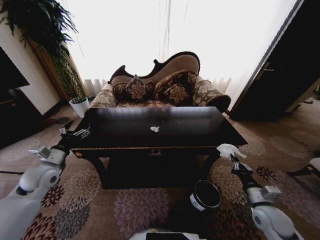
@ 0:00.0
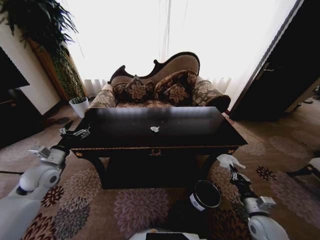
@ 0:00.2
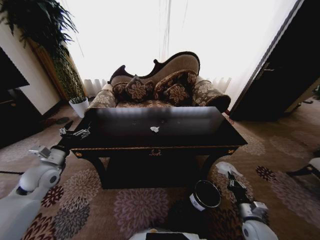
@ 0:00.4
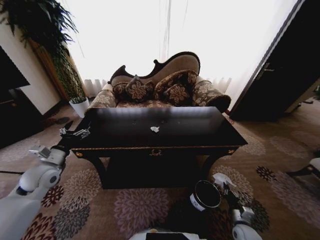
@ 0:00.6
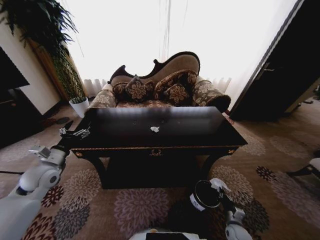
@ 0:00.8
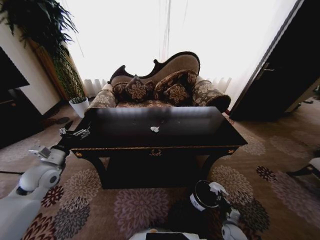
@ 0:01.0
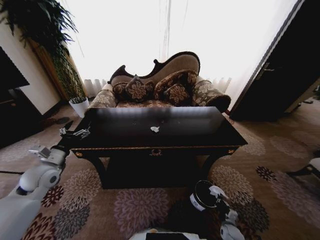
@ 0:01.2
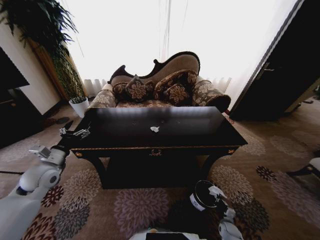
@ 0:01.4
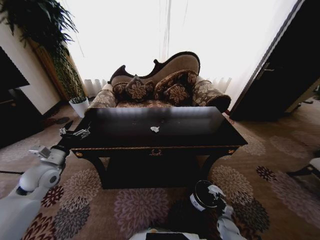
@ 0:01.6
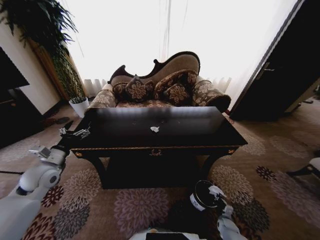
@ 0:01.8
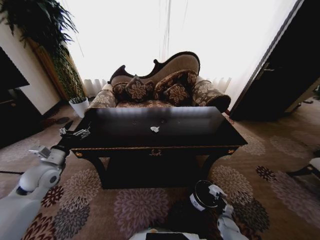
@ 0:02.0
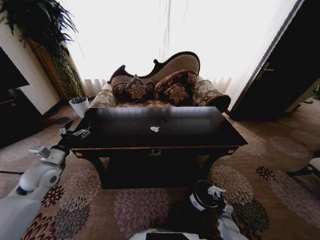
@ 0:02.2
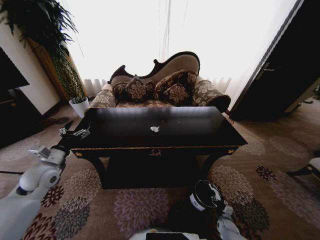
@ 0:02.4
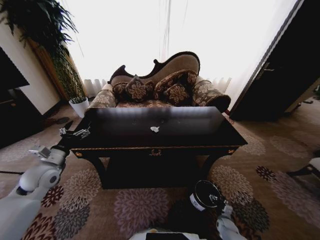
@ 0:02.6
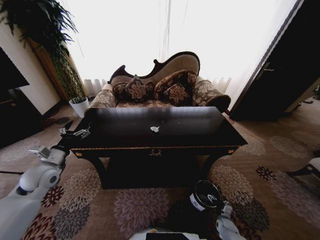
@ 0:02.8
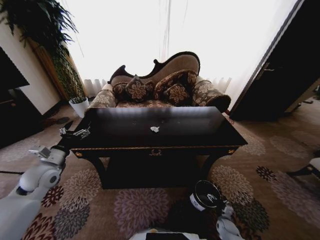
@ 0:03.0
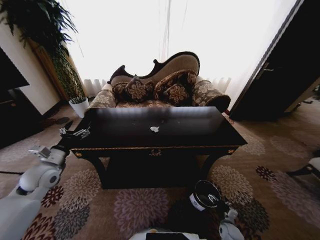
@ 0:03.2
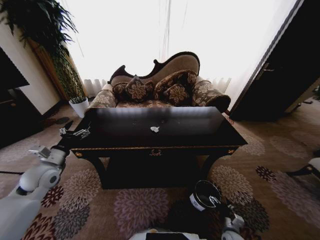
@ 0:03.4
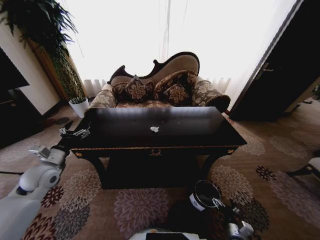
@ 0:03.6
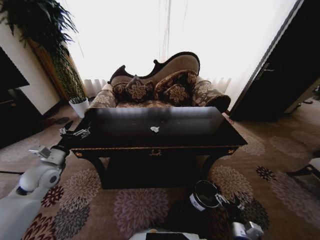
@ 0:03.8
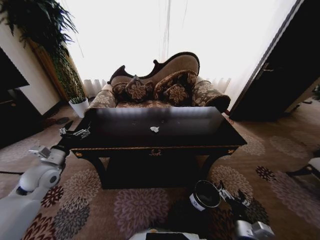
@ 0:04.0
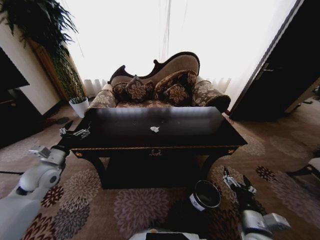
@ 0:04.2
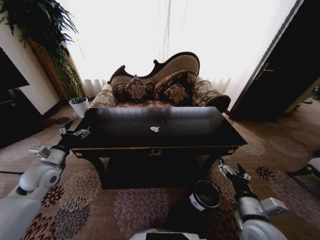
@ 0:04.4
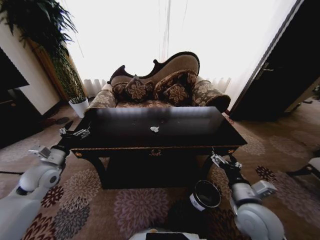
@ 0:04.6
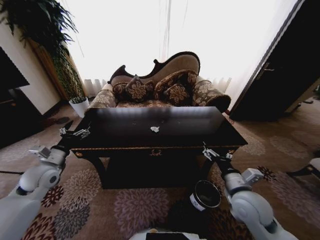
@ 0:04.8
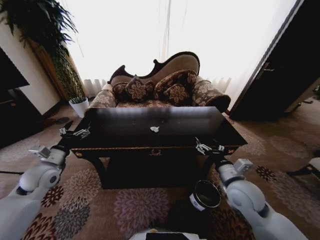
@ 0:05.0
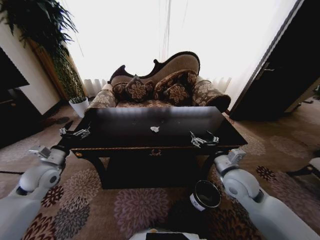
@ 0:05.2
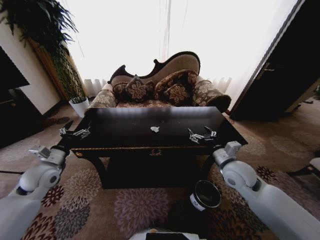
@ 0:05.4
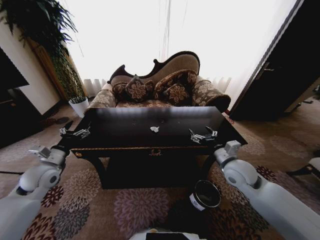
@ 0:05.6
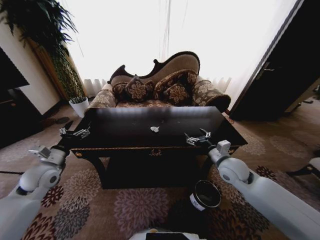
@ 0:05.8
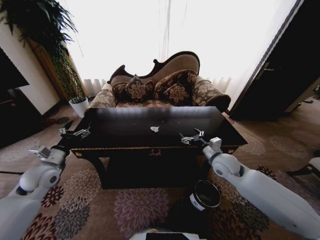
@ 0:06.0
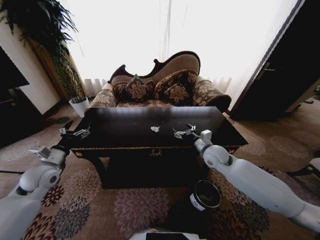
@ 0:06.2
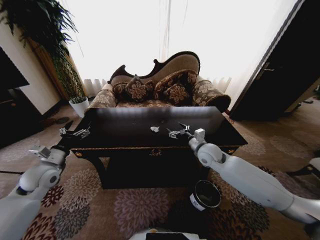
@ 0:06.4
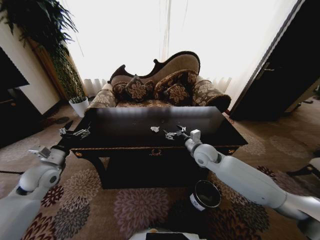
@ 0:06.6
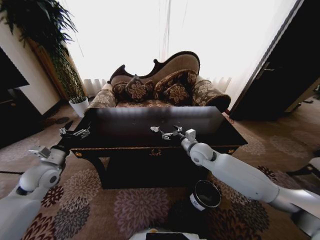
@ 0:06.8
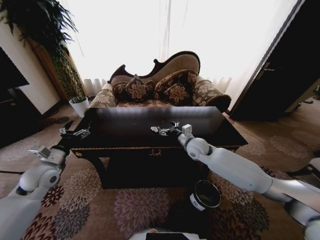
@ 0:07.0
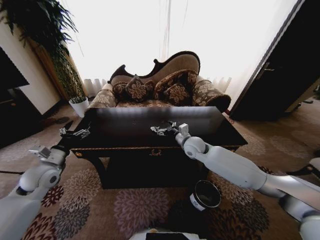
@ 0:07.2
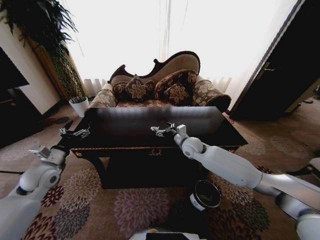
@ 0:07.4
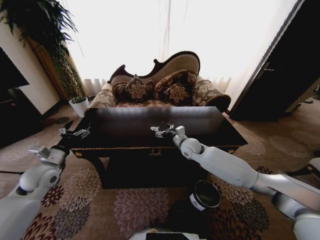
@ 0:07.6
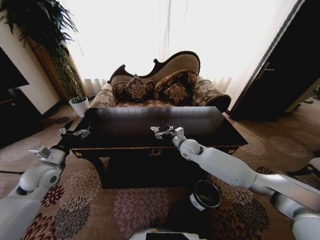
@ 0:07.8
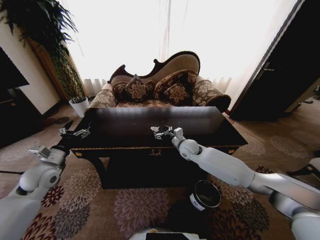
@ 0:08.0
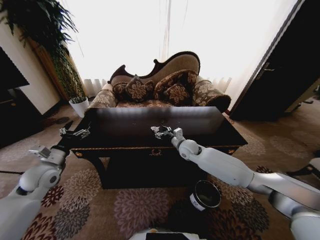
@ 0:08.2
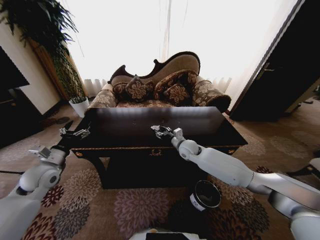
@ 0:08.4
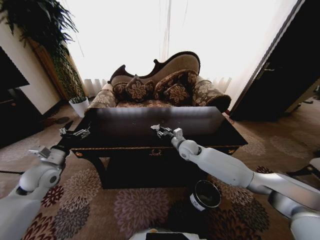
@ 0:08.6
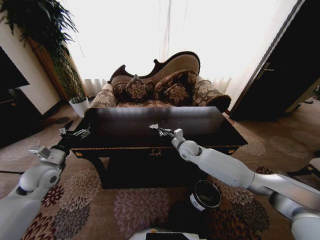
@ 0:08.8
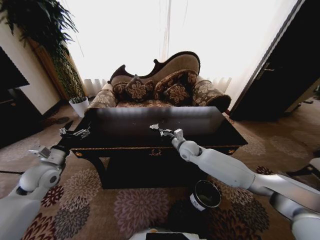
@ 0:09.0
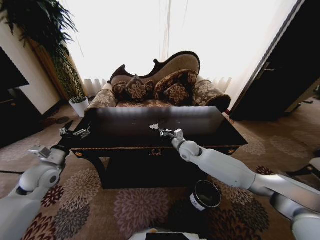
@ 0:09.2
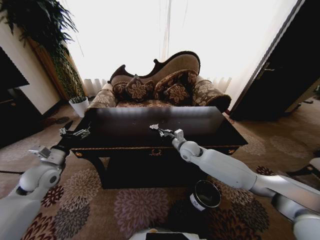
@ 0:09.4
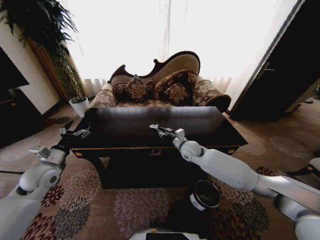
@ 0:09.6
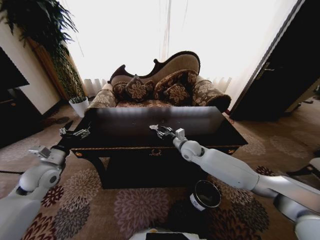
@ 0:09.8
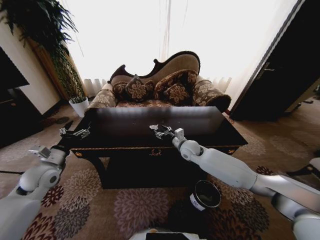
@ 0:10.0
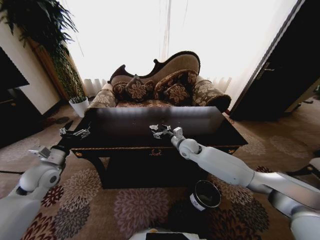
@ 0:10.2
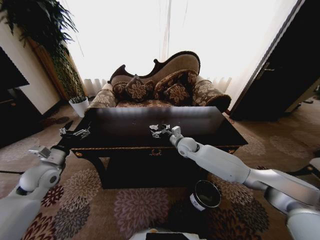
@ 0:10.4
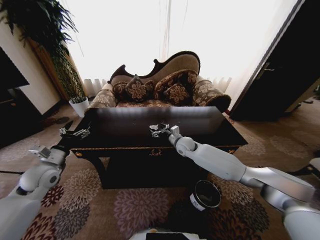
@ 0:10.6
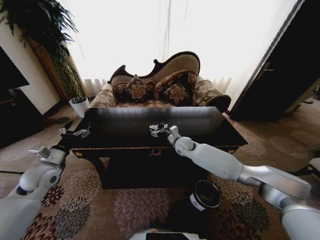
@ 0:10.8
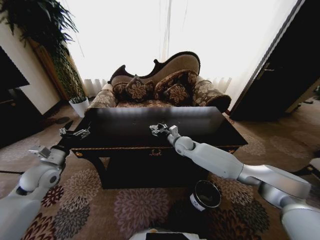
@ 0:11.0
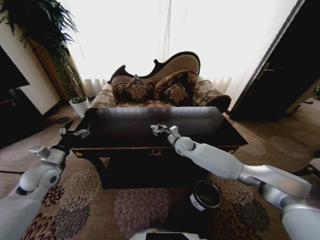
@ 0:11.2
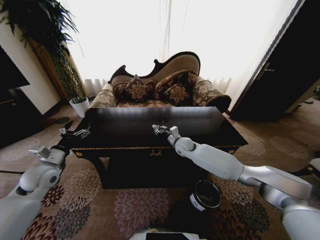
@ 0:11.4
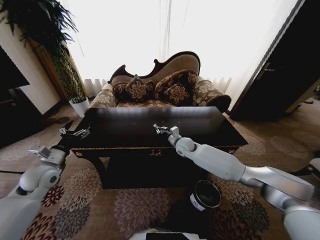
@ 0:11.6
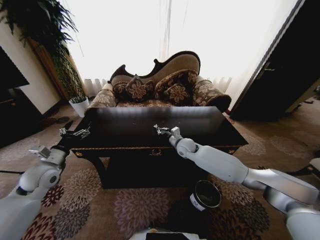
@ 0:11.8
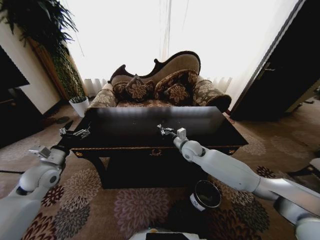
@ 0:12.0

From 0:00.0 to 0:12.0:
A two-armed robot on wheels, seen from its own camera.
Task of the whole recording: Move to the front of the table and place the trash on the table into the trash bin.
From 0:00.0 to 0:01.6: The right gripper moves downward, about 30 cm.
From 0:03.0 to 0:04.4: The right gripper heads upward, covering about 35 cm.
From 0:04.4 to 0:06.0: The right gripper shifts roughly 20 cm forward.
From 0:06.0 to 0:07.6: The right gripper is displaced to the left and forward by roughly 15 cm.
From 0:07.6 to 0:09.0: The right gripper closes.
From 0:09.0 to 0:10.4: The right gripper opens its fingers.
From 0:10.4 to 0:12.0: The right gripper closes its fingers.

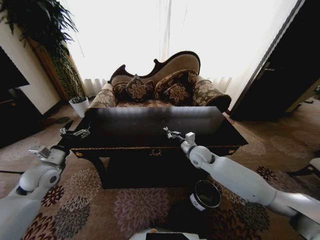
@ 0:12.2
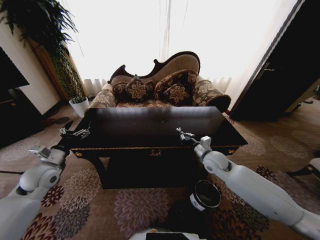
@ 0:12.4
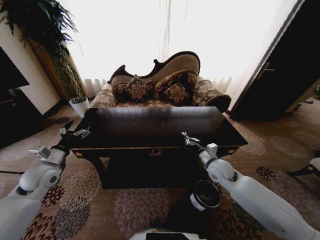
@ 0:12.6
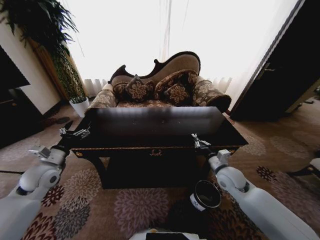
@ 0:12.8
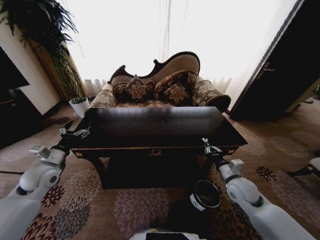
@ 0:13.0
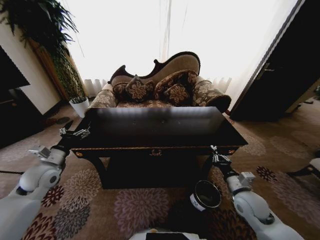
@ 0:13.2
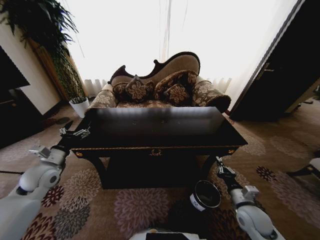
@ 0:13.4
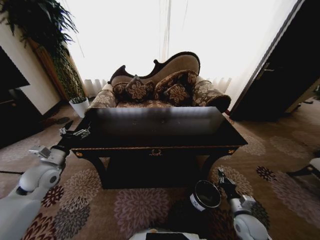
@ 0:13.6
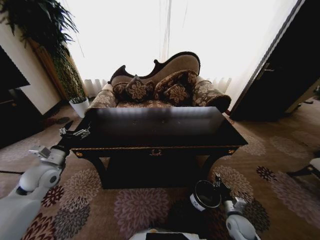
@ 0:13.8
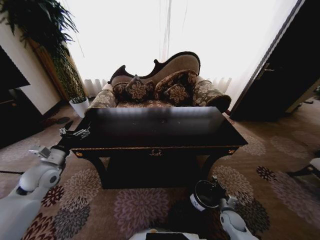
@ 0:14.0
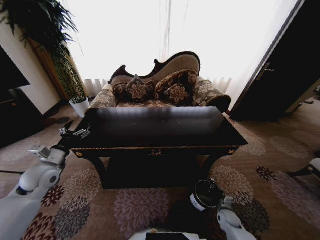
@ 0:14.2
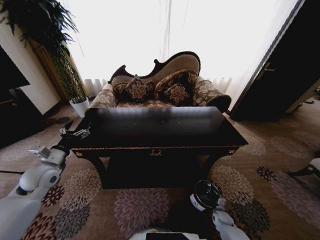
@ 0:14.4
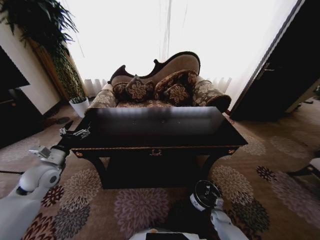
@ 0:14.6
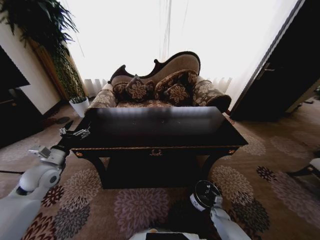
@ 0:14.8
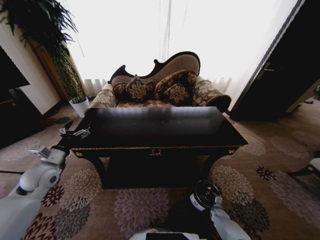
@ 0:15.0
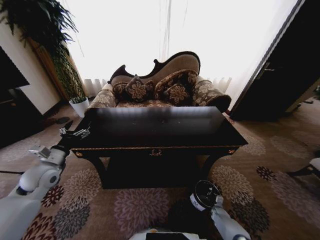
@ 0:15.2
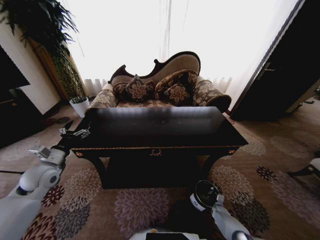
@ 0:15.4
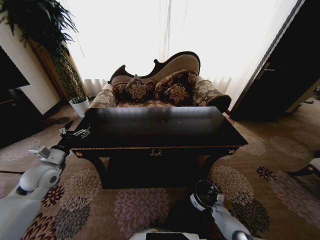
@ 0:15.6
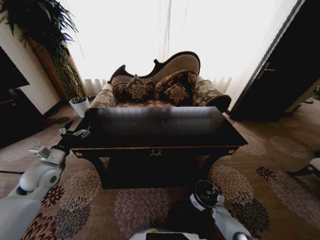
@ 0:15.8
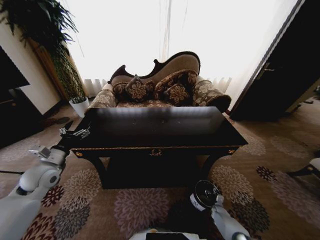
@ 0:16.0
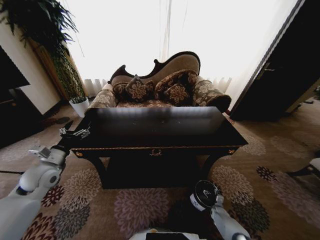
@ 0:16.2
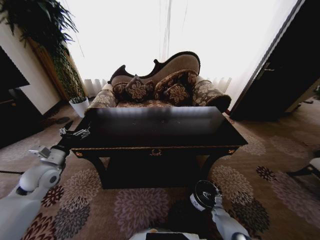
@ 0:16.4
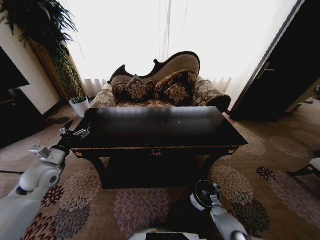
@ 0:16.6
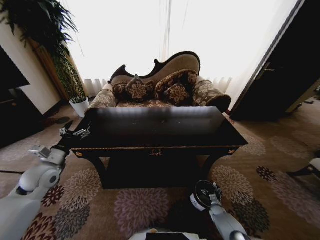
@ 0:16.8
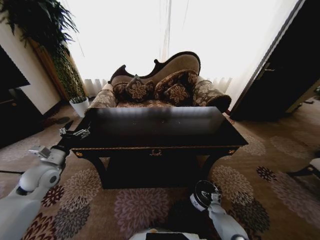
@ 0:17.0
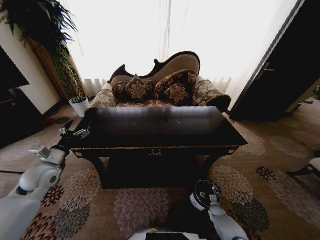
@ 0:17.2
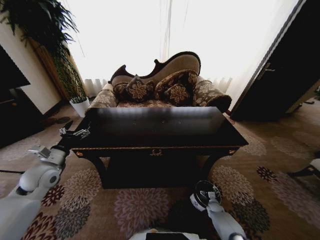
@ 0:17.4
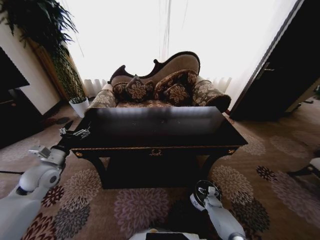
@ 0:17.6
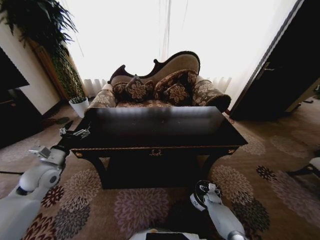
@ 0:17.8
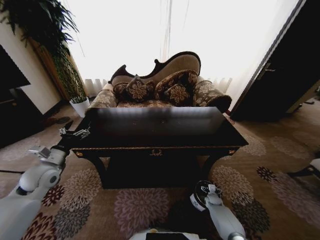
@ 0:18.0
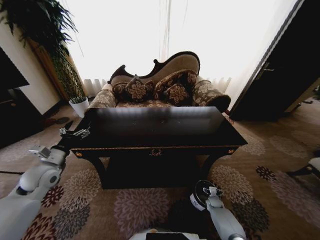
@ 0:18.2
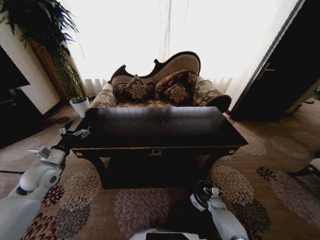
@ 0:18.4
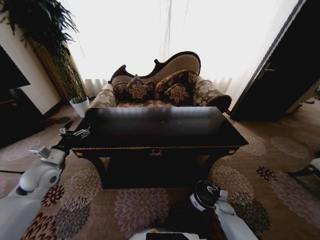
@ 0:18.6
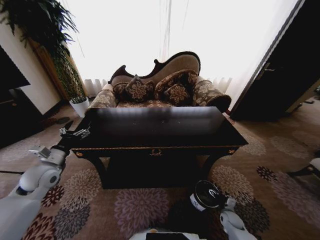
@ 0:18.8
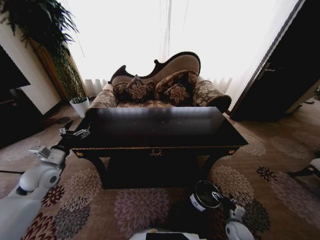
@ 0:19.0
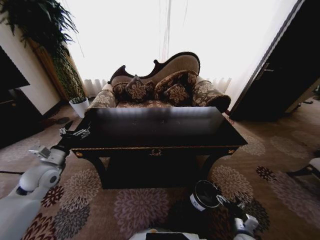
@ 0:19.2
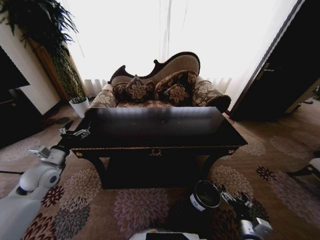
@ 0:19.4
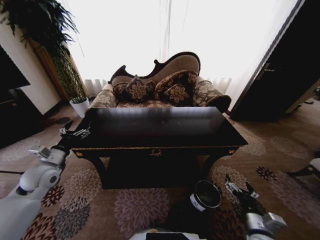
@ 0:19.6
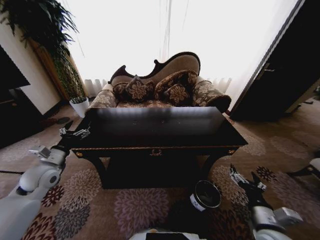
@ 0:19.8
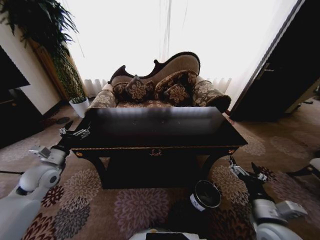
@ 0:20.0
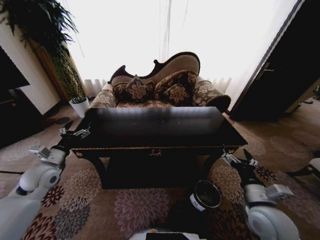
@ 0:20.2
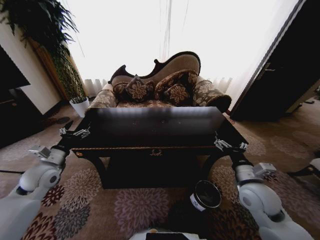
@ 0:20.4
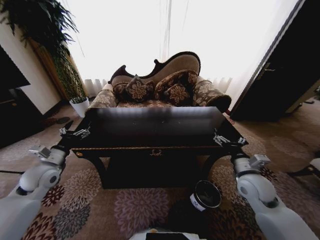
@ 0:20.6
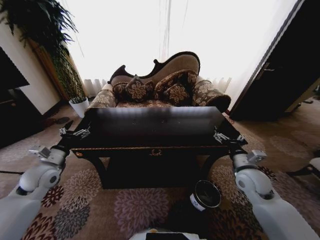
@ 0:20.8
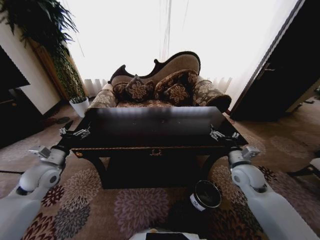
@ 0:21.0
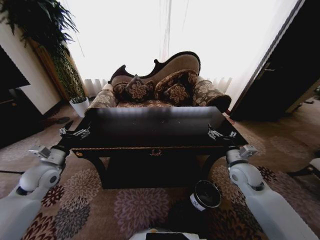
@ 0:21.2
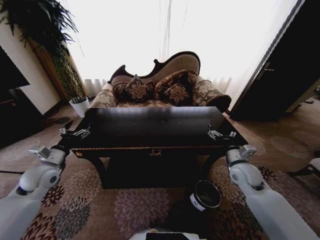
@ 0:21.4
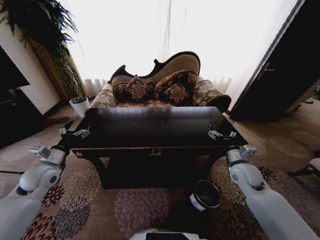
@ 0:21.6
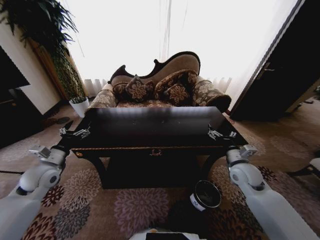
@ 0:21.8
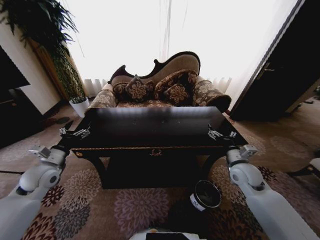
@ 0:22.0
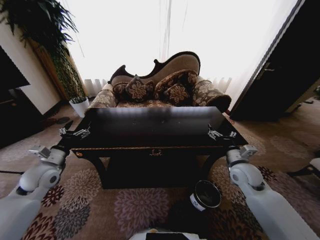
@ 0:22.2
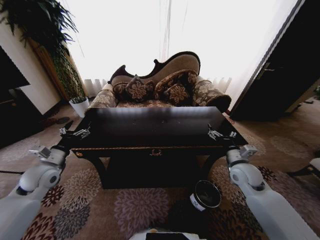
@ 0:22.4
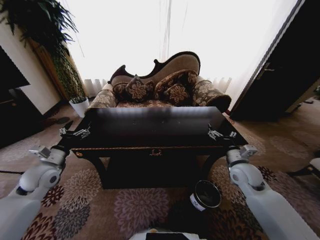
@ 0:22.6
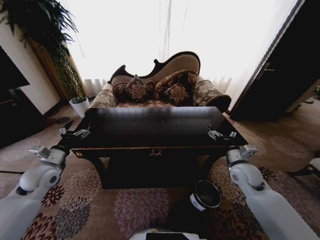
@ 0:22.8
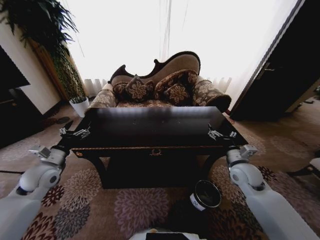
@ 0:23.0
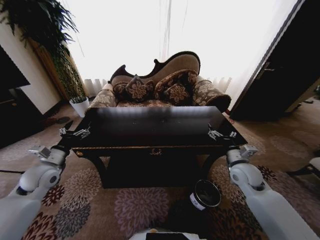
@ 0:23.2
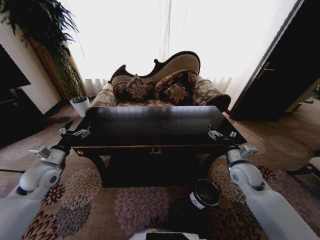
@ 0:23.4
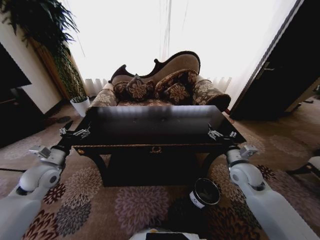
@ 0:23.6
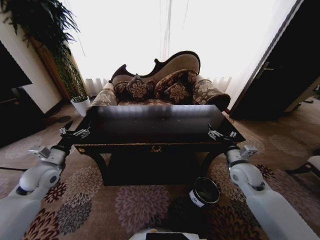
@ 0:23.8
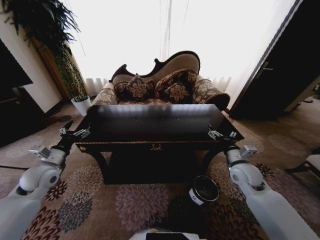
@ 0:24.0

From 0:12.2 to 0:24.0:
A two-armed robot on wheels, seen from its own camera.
Task of the whole recording: Move to the front of the table and place the trash on the table into the trash bin.
From 0:12.2 to 0:13.6: The right gripper shifts roughly 35 cm backward, to the right and downward.
From 0:13.6 to 0:15.2: The right gripper travels downward by approximately 25 cm.
From 0:16.6 to 0:18.2: The right gripper moves roughly 5 cm.
From 0:18.2 to 0:19.6: The right gripper shifts approximately 35 cm upward and backward.
From 0:19.6 to 0:21.0: The right gripper travels forward and upward by roughly 25 cm.
From 0:21.0 to 0:24.0: Both grippers stay about where they are.
